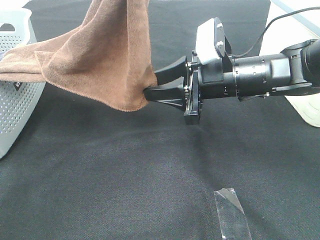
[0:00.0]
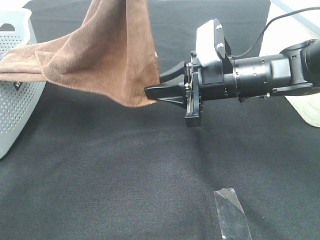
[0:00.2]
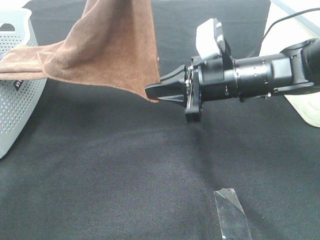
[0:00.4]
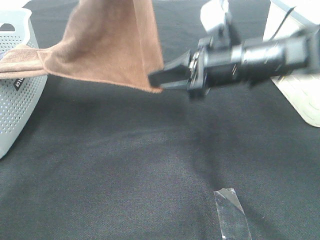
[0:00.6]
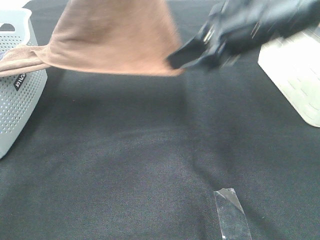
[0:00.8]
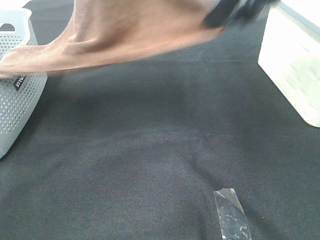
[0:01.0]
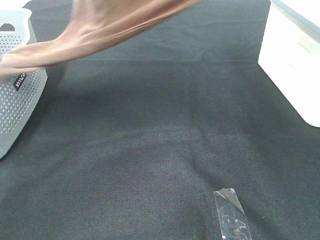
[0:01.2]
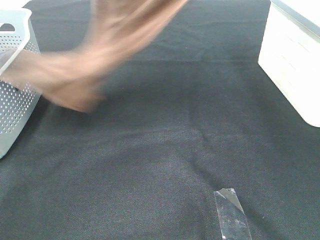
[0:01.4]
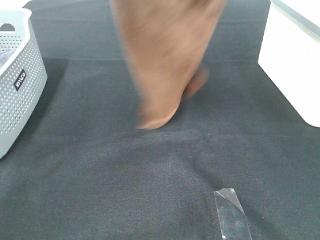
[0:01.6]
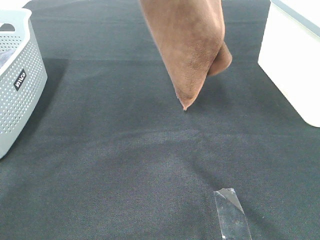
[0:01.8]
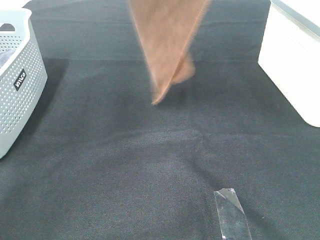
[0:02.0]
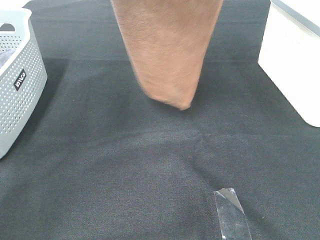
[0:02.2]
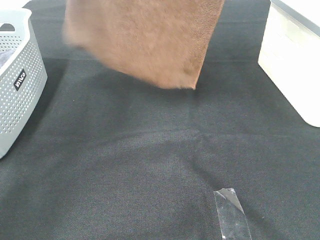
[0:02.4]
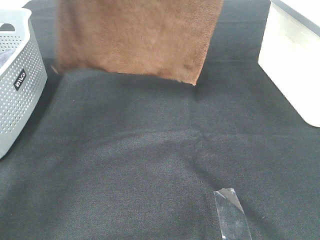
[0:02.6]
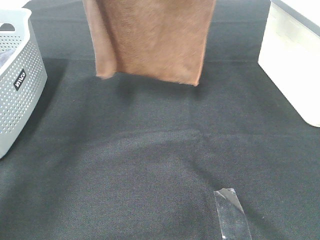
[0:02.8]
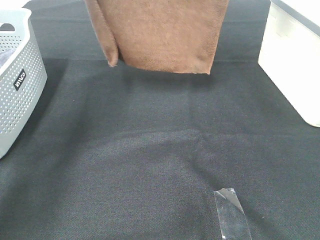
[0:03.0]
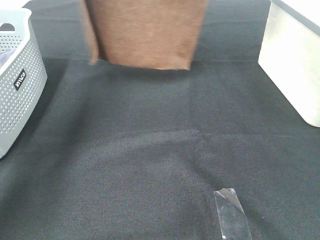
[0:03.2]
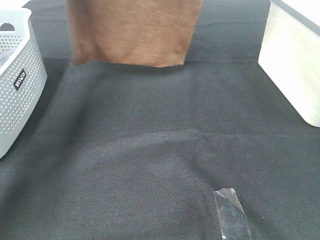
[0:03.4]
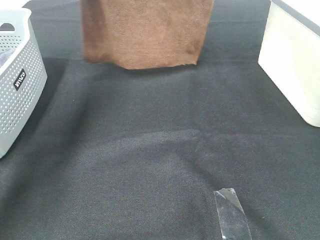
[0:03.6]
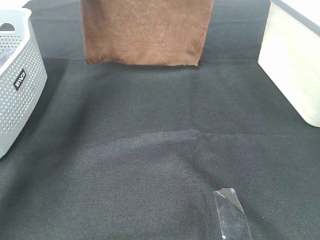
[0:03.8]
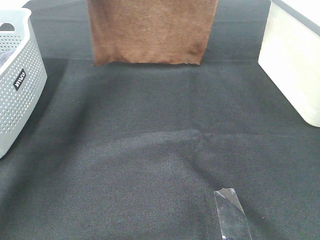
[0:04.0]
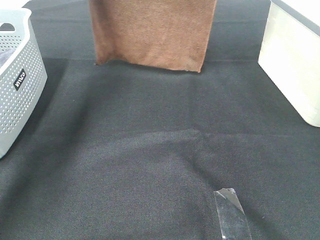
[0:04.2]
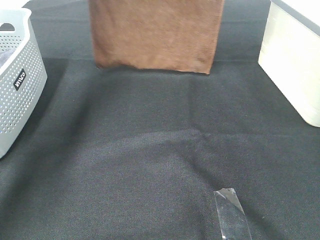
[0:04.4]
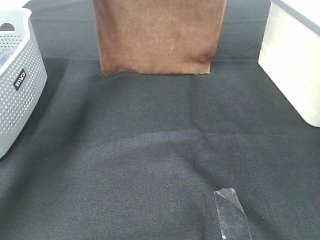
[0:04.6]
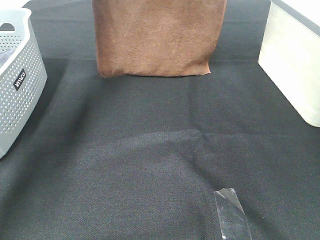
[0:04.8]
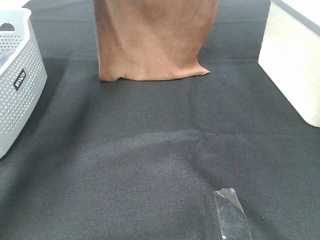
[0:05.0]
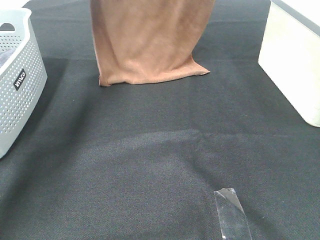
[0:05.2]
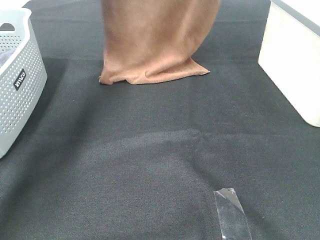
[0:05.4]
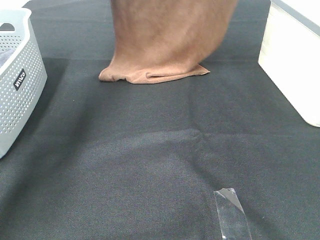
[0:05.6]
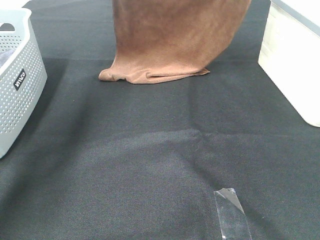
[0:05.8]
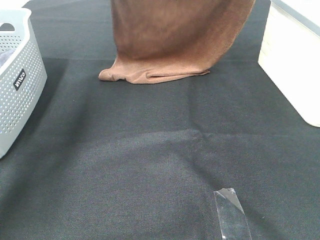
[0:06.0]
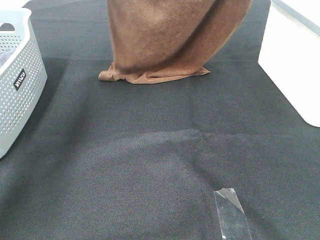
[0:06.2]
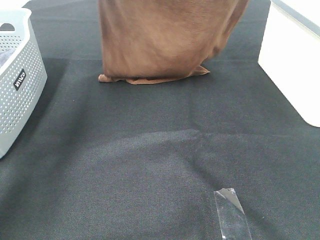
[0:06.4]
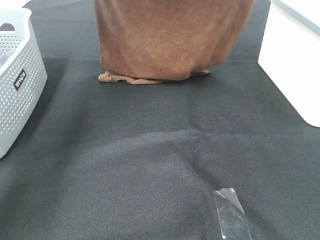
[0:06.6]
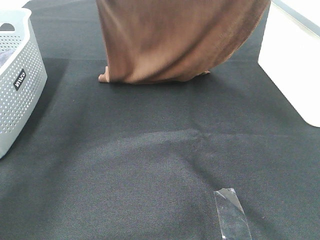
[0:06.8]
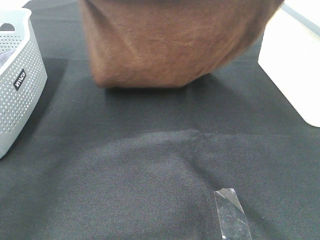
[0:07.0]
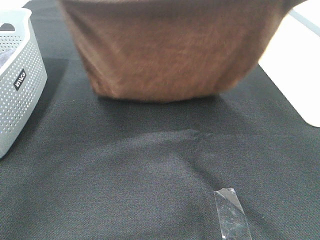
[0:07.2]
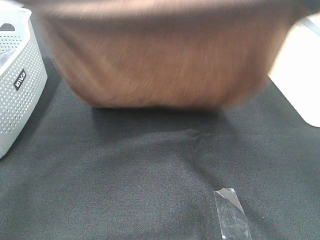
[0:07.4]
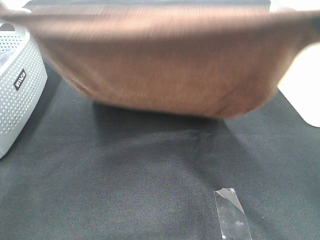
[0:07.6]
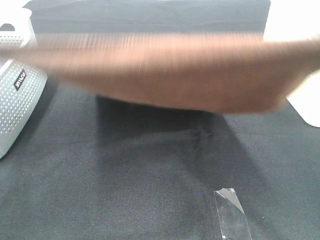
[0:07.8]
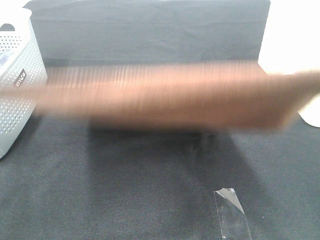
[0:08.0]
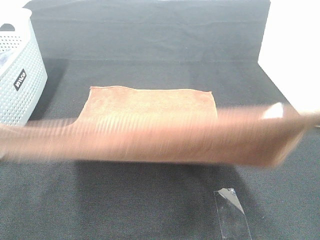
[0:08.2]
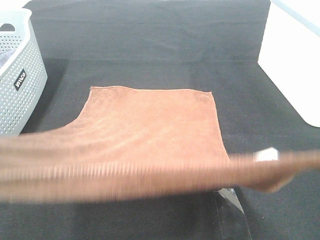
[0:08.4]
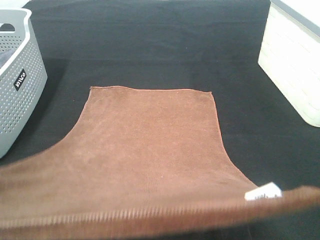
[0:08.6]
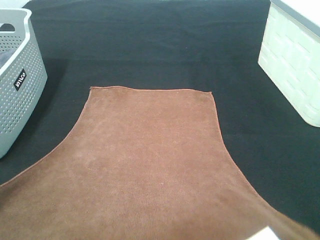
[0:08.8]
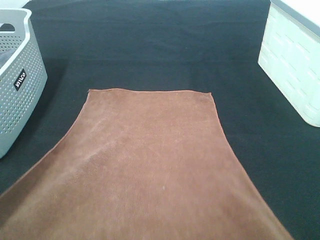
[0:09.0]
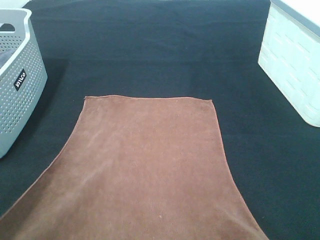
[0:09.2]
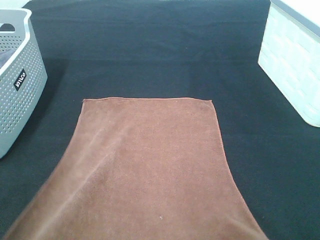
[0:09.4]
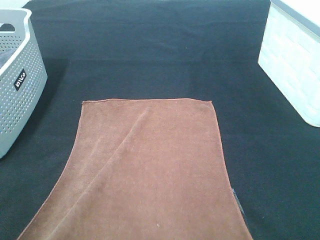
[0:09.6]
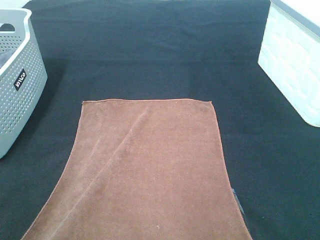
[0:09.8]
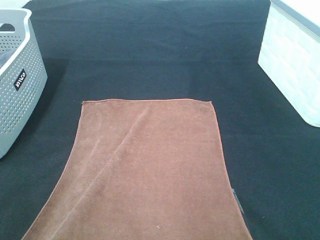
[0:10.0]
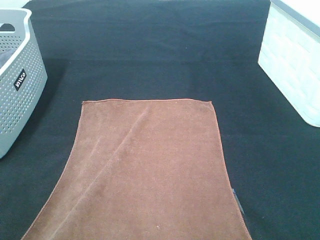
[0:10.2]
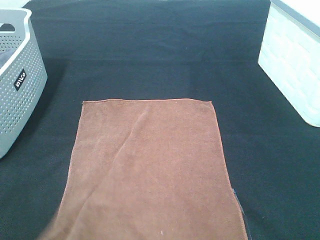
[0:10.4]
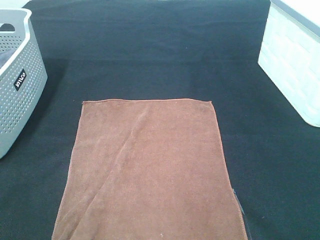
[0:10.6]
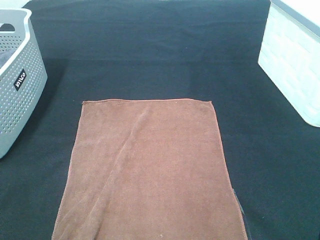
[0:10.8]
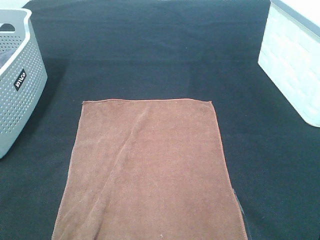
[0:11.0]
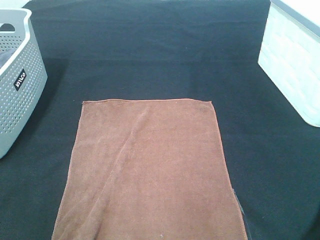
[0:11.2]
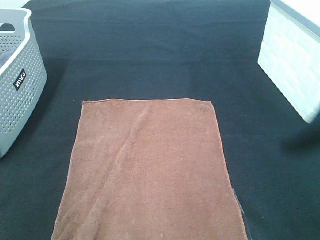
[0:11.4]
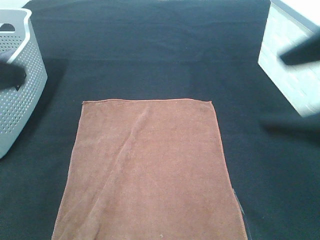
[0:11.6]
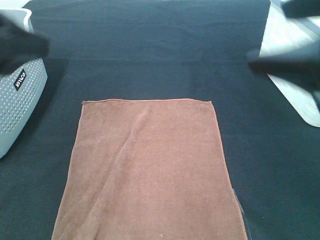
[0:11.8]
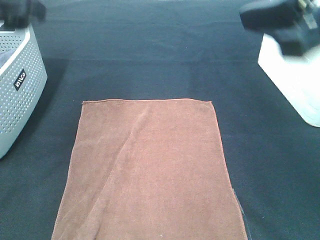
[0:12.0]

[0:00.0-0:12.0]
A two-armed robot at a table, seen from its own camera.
Task of the whole recording: Remove the towel and place it.
Step, 0.0 to 6.2 s: Left hand: spread the brown towel flat on the table.
Step, 0.0 to 6.2 s: Right hand: spread the brown towel flat on the table.
0.0 to 1.6 s: The left gripper moves upward, about 5 cm. The right gripper heads upward, covering approximately 35 cm, and closes its fingers.
1.6 to 3.0 s: The left gripper is displaced forward and to the left by some 10 cm; the right gripper shifts approximately 15 cm forward.
3.0 to 4.4 s: The right gripper shifts about 10 cm forward and downward. The left gripper moves downward and forward, approximately 10 cm.
4.4 to 6.0 s: The right gripper heads downward, covering roughly 5 cm; the left gripper ends up about 5 cm from where it was.
6.0 to 7.6 s: The grippers both shift backward by about 30 cm.
7.6 to 9.0 s: Both grippers move backward and downward, roughly 15 cm.
9.0 to 10.4 s: The left gripper moves downward, approximately 5 cm, and opens up. The right gripper opens its fingers.
10.4 to 12.0 s: The left gripper goes approximately 25 cm forward and upward, and opens. Meanwhile the right gripper shifts roughly 15 cm forward and upward, and opens.

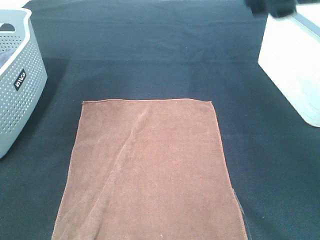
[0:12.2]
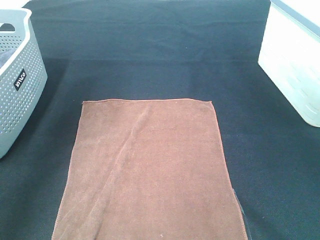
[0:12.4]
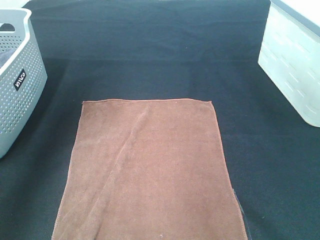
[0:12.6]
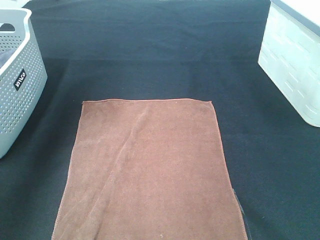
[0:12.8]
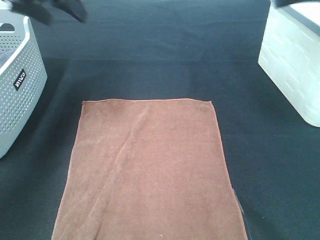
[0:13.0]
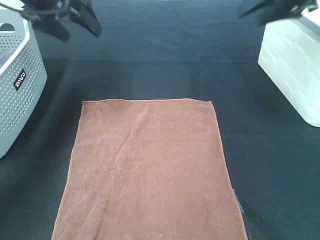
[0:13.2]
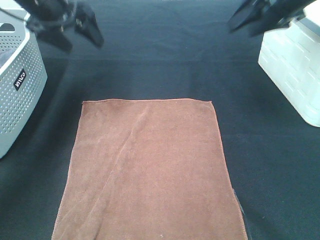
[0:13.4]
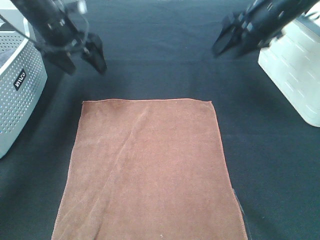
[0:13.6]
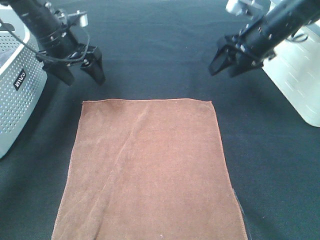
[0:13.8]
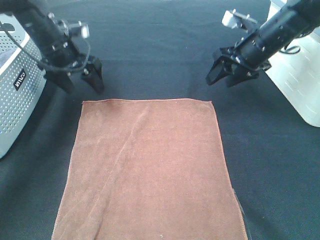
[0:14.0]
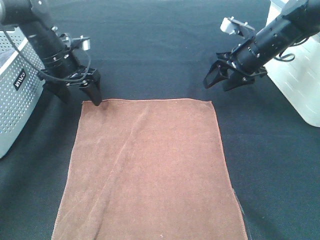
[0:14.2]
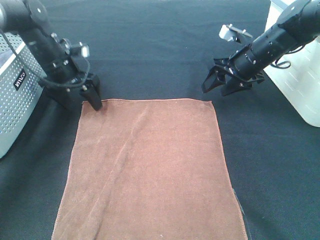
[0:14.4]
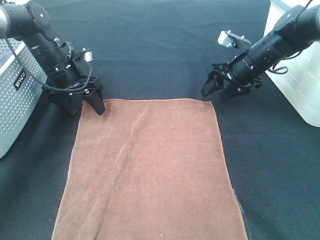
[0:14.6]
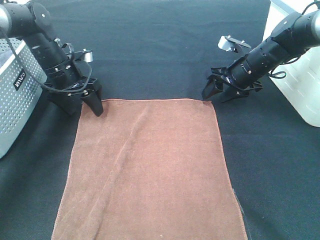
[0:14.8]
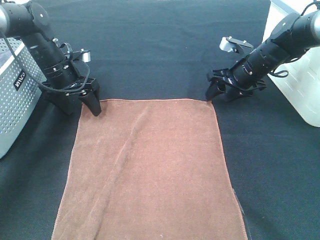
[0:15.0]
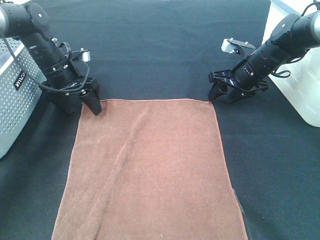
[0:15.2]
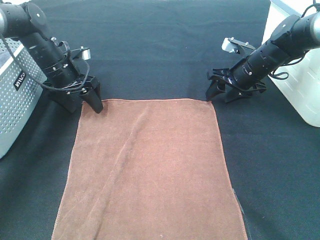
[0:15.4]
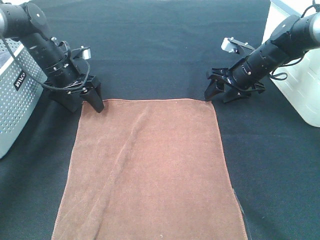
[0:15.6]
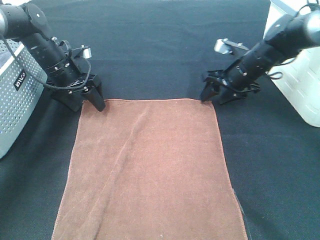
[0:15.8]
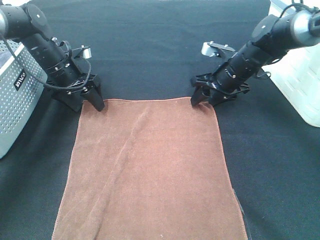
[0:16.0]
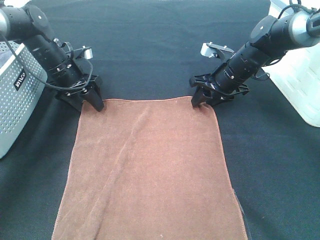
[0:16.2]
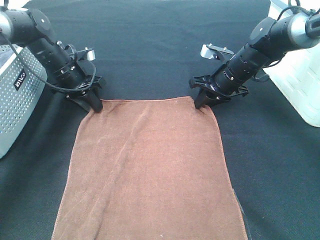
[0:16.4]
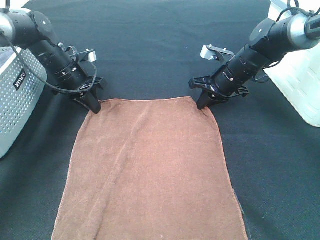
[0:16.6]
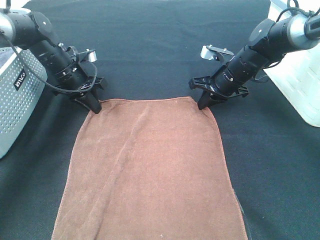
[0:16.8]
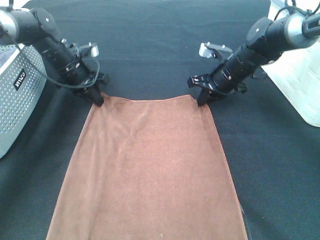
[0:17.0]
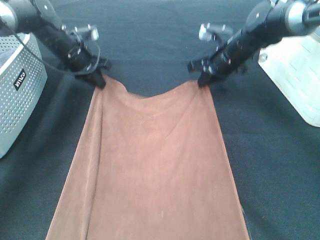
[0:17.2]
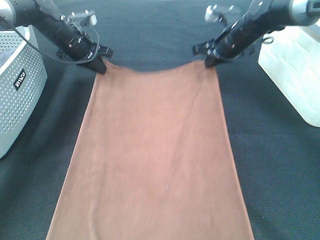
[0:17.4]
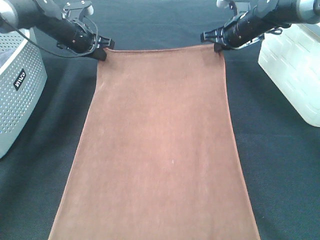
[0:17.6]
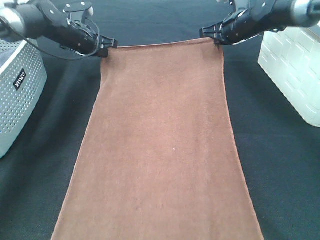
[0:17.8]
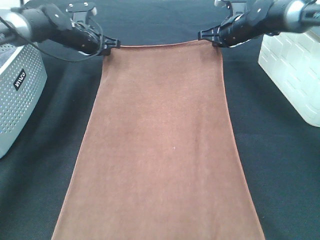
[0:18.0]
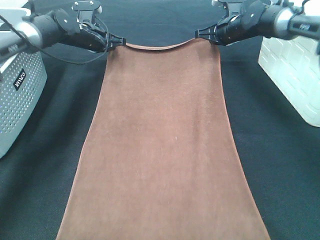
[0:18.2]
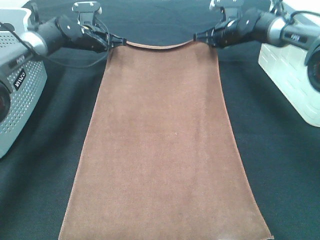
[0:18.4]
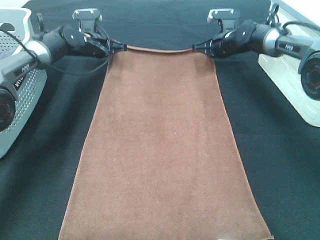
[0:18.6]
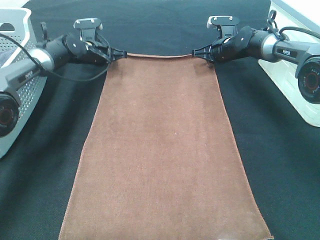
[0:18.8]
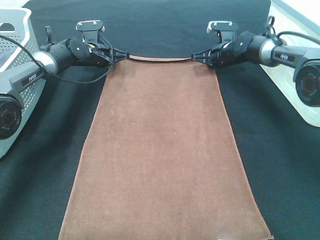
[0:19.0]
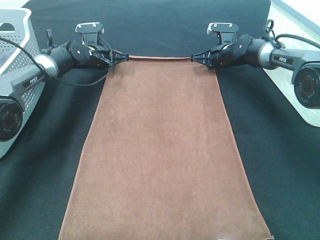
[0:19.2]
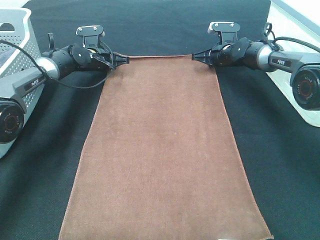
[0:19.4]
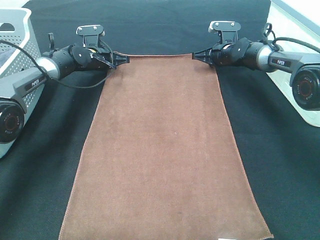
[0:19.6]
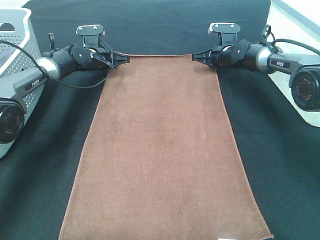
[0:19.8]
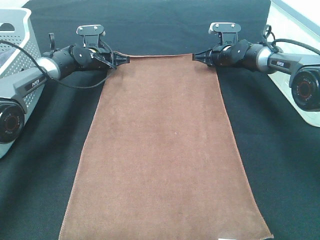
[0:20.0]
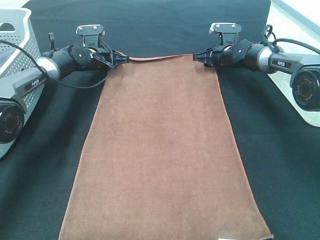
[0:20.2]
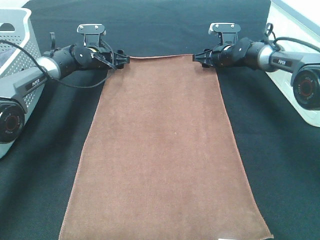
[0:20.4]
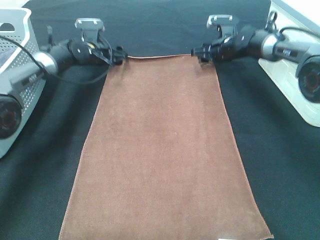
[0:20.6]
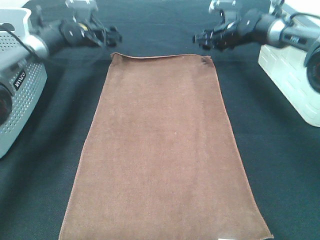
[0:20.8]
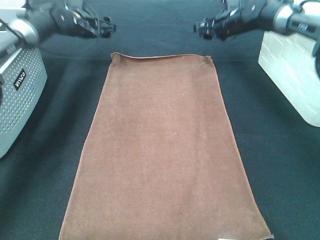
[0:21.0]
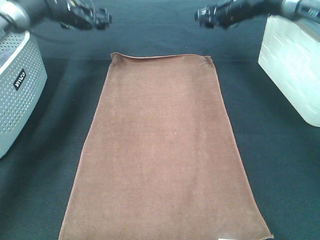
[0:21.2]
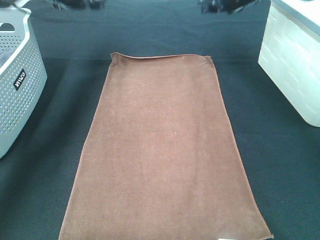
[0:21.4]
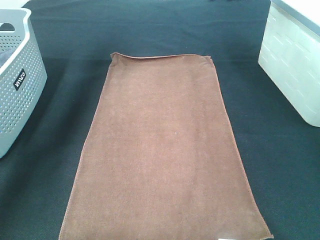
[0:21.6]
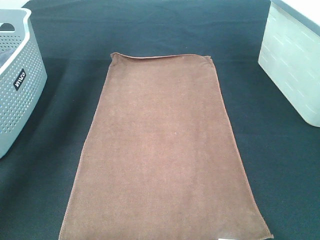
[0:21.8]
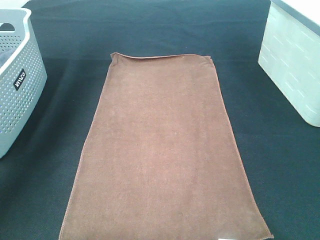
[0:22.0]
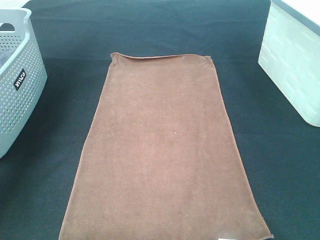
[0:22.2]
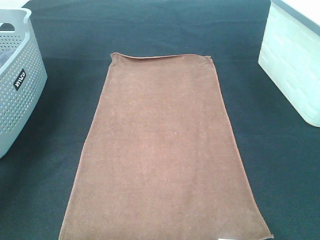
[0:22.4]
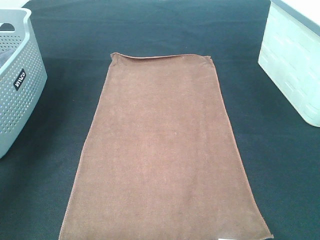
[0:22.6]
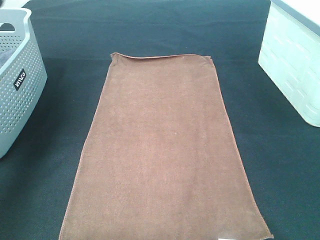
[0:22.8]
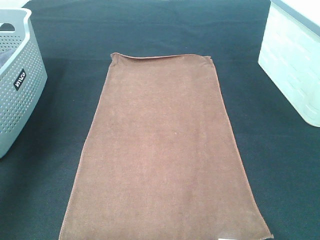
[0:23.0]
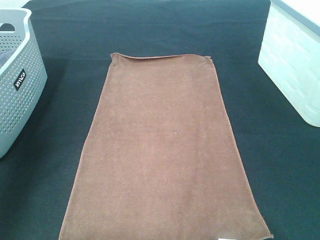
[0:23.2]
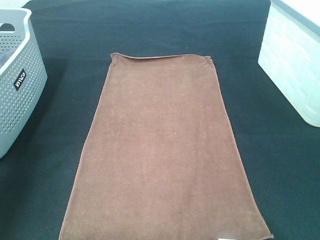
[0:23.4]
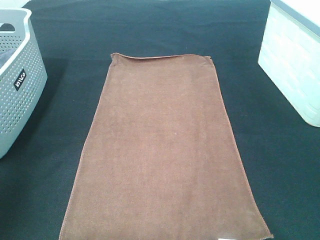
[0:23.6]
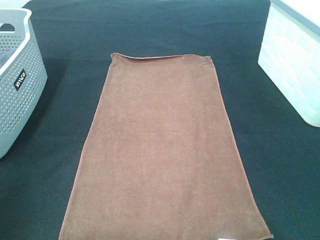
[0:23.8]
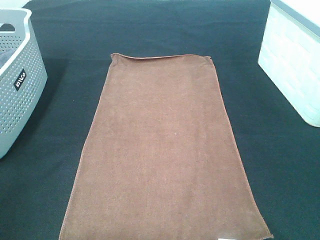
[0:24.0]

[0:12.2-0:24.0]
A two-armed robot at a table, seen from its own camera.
Task of the whole recording: Remove the towel and place it.
12.2 to 13.6 s: The right gripper moves forward and downward, about 25 cm. The left gripper is displaced downward and forward by some 25 cm.
13.6 to 15.2 s: The grippers both shift downward by roughly 10 cm.
15.2 to 16.6 s: The right gripper closes up. Meanwhile the left gripper closes.
16.6 to 18.2 s: The right gripper moves forward and upward, about 15 cm, while the left gripper goes roughly 10 cm forward.
18.2 to 19.6 s: Both grippers move downward, roughly 5 cm.
19.6 to 21.0 s: The two grippers go about 10 cm upward. The right gripper opens its fingers. Meanwhile the left gripper opens up.
21.0 to 22.6 s: The right gripper shifts approximately 30 cm upward and backward; the left gripper heads upward, backward and to the left, covering about 30 cm.
22.6 to 24.0 s: The grippers both shift backward by about 30 cm.
